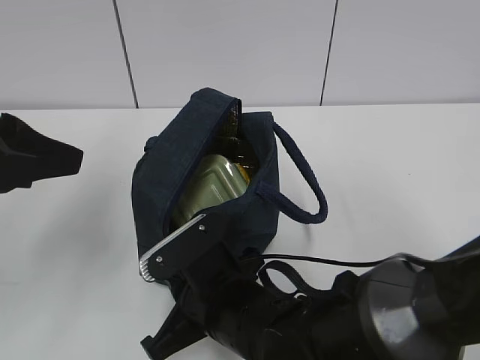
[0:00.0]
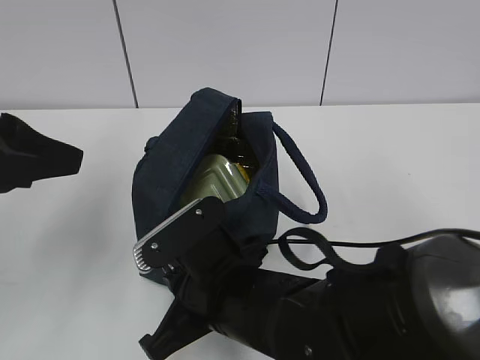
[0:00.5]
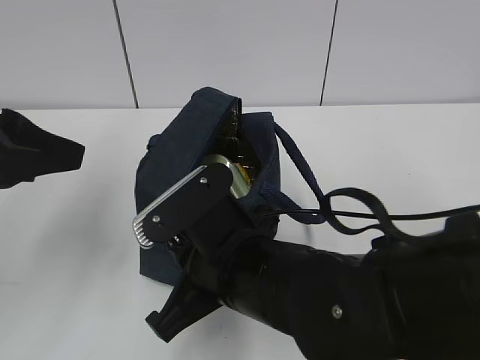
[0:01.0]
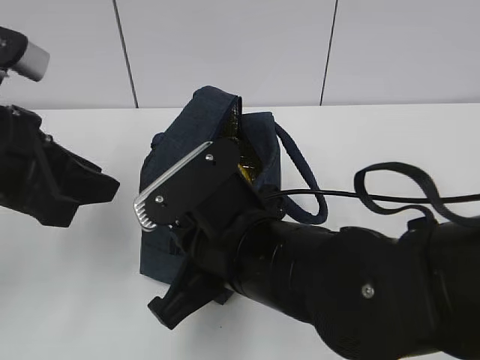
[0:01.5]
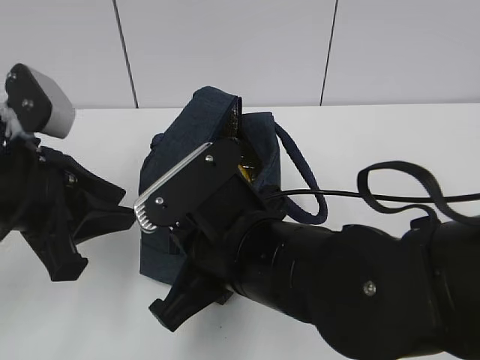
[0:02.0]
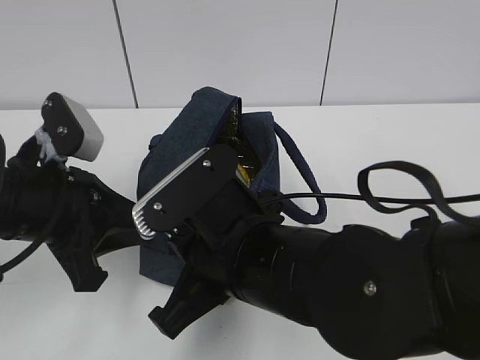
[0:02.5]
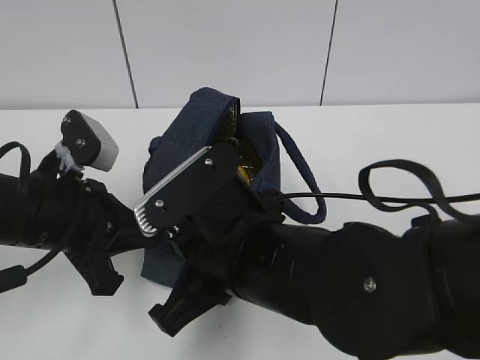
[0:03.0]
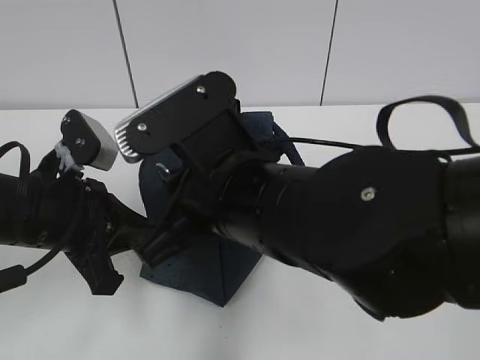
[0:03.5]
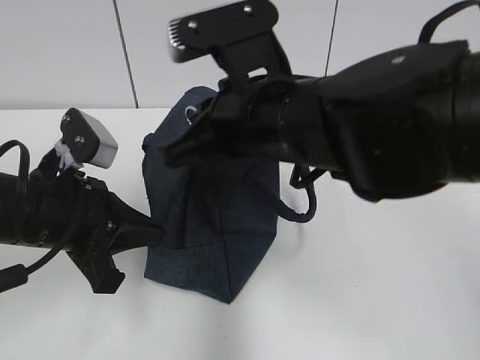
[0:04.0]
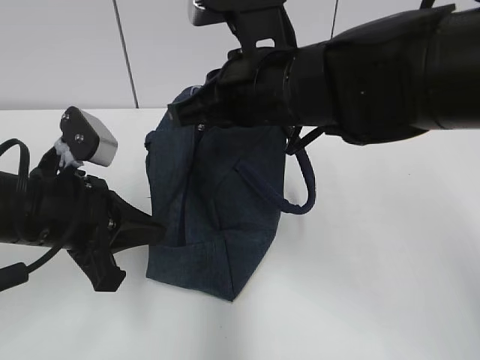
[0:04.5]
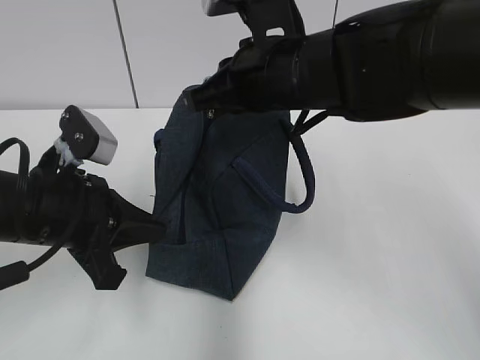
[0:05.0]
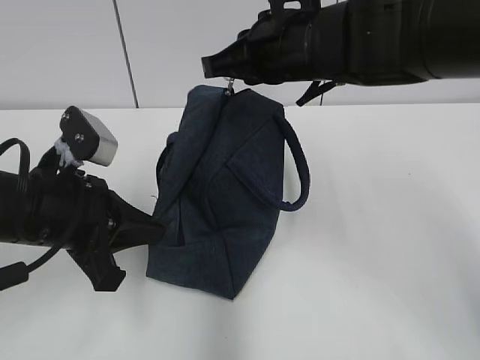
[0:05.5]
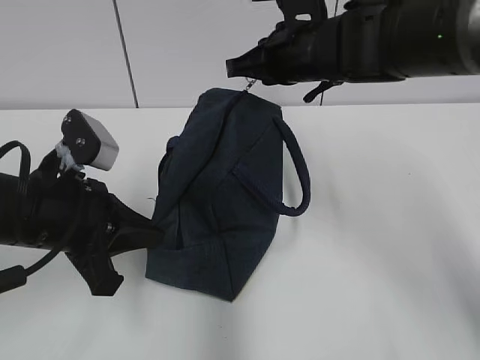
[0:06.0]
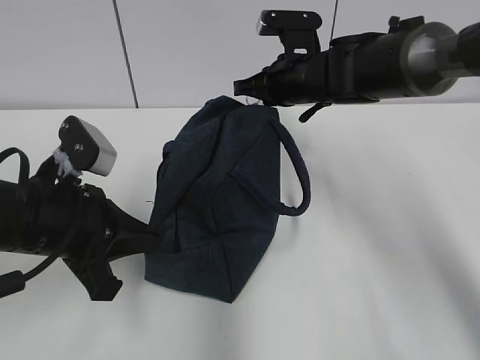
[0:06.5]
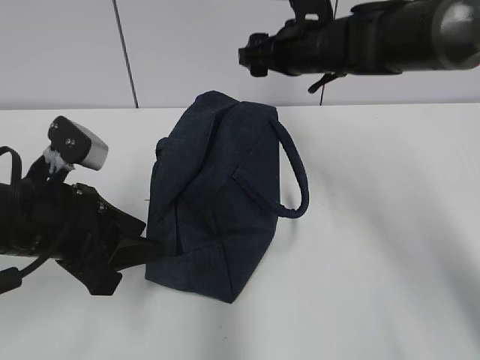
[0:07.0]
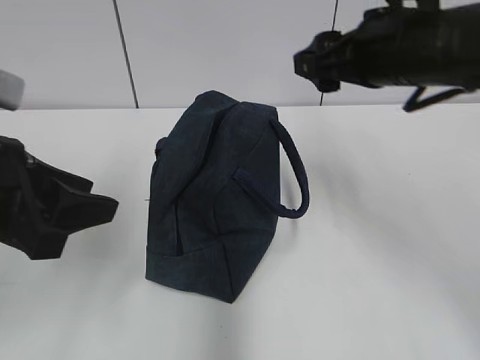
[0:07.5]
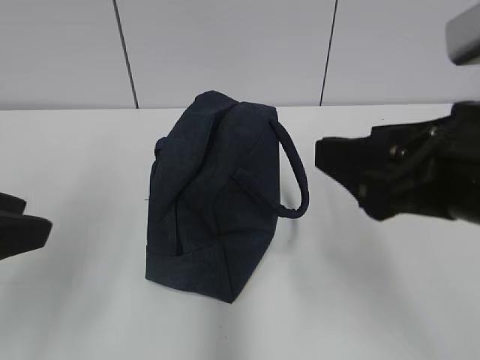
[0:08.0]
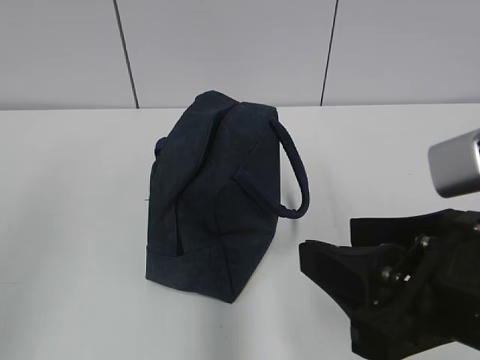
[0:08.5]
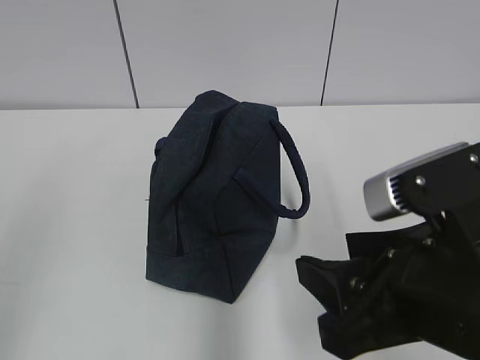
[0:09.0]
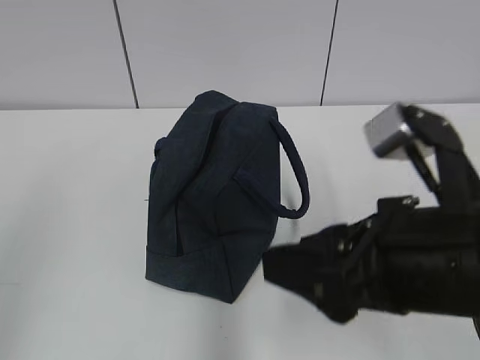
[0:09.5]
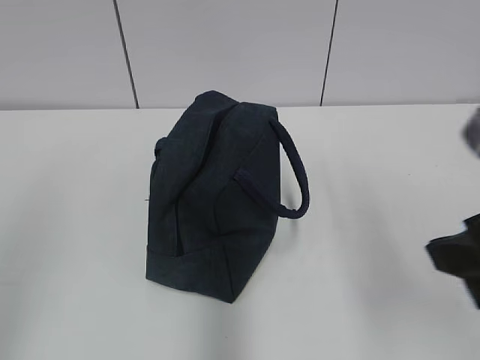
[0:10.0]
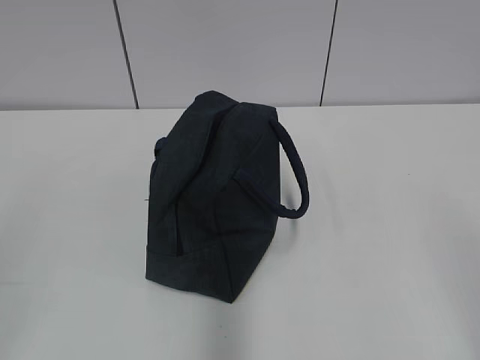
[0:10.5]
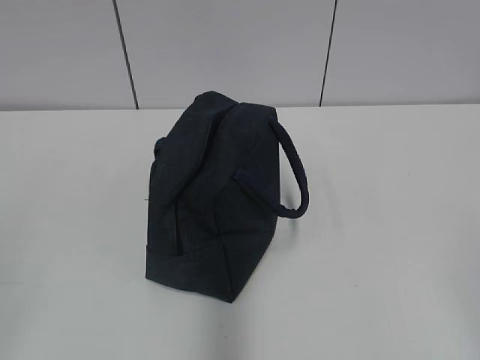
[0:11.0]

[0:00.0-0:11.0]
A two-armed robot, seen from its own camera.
0:00.0 to 0:02.0: The left gripper goes approximately 5 cm downward. Meanwhile the right gripper moves upward, some 10 cm.
0:02.0 to 0:03.5: The left gripper moves some 5 cm, and closes up.
0:03.5 to 0:05.5: The right gripper goes roughly 15 cm forward and to the right.
0:05.5 to 0:07.5: The left gripper travels upward by approximately 5 cm, and opens up, while the right gripper moves to the right, roughly 10 cm, reaches some 10 cm forward, then returns, and opens.
0:07.5 to 0:09.0: The left gripper moves backward, to the left and upward, approximately 20 cm. The right gripper heads backward, covering approximately 20 cm.
0:09.0 to 0:11.0: The left gripper heads backward, covering some 5 cm. The right gripper moves to the right and backward, some 20 cm.

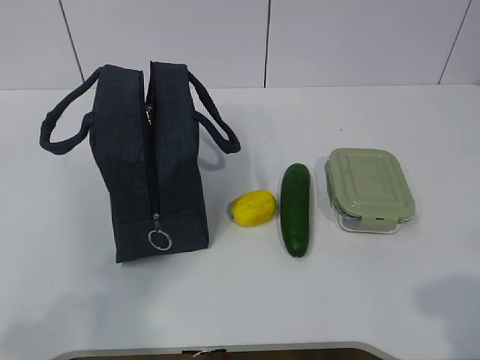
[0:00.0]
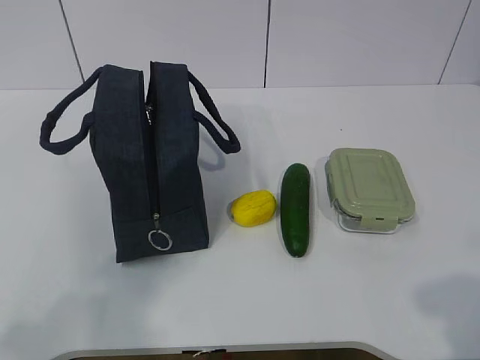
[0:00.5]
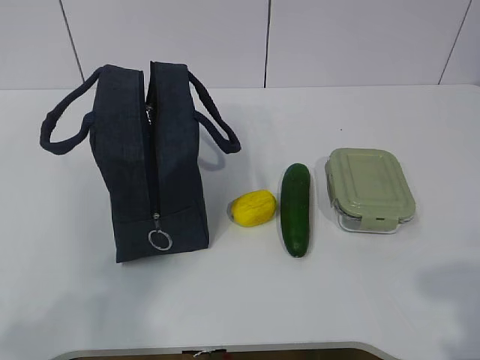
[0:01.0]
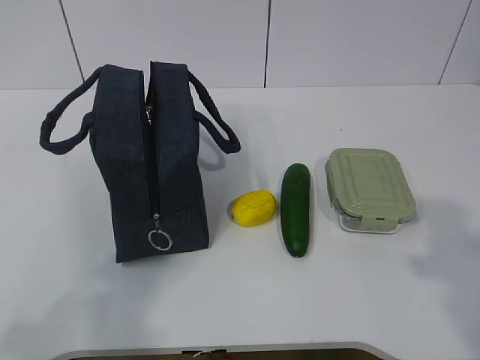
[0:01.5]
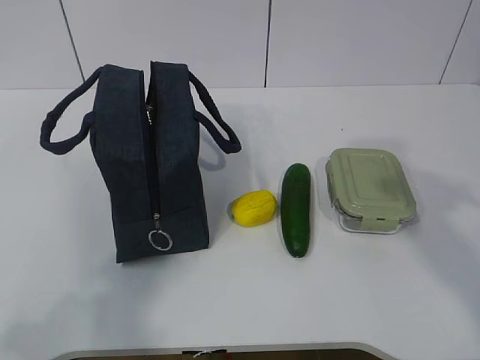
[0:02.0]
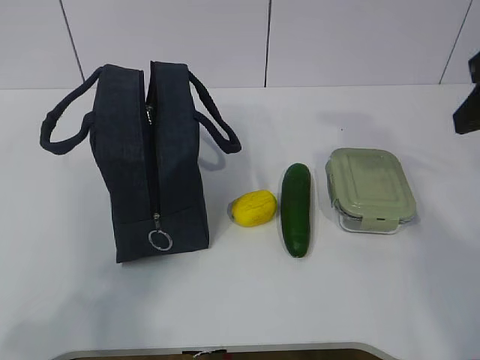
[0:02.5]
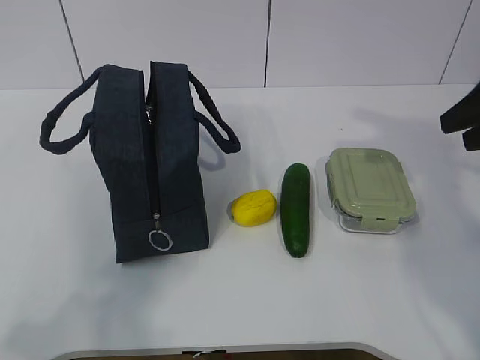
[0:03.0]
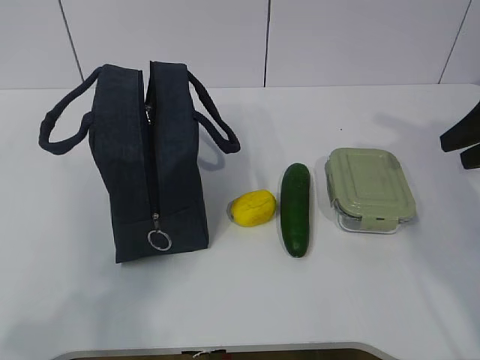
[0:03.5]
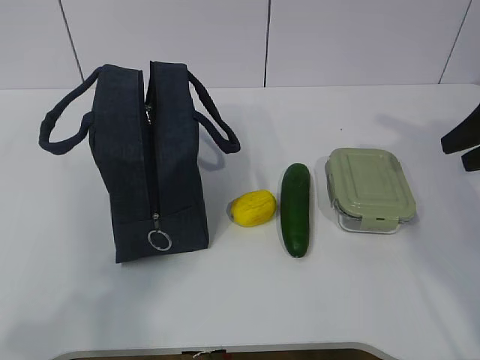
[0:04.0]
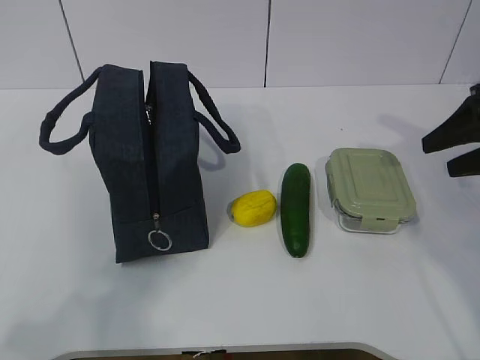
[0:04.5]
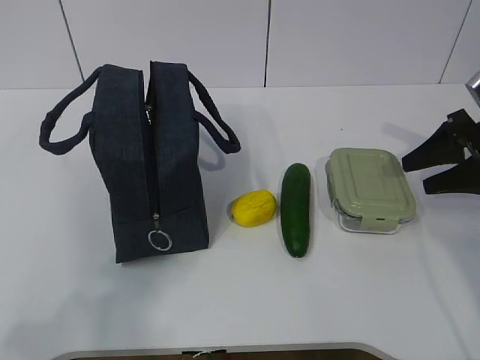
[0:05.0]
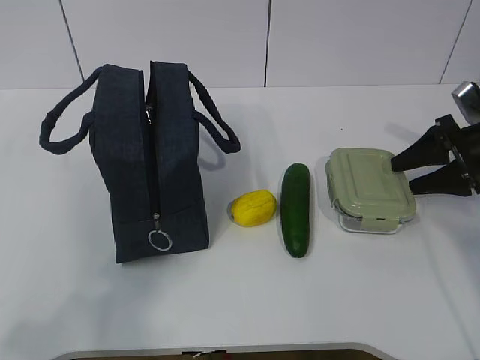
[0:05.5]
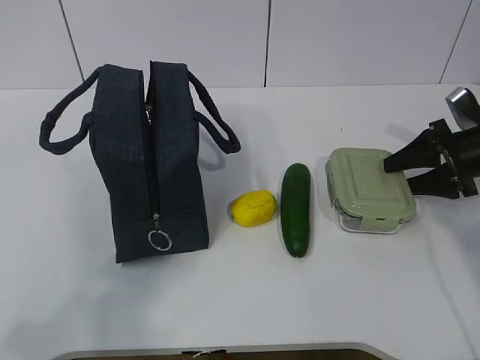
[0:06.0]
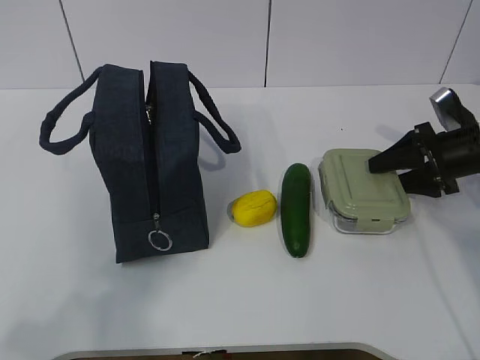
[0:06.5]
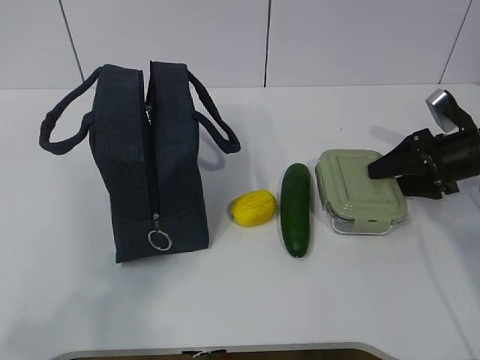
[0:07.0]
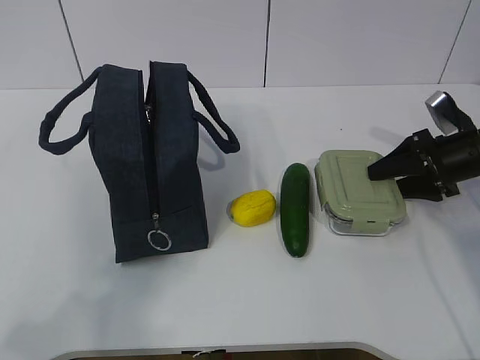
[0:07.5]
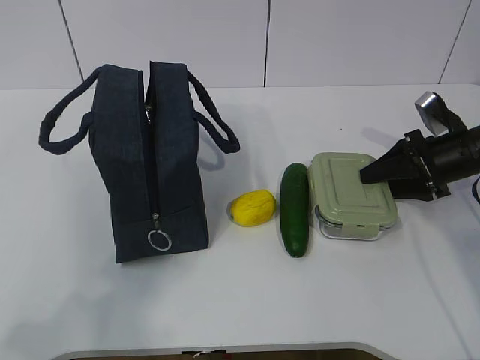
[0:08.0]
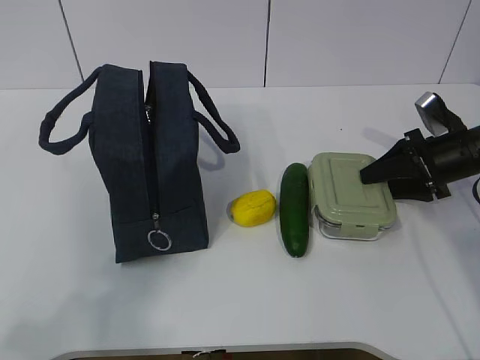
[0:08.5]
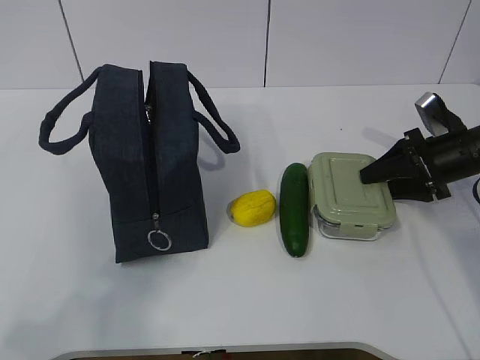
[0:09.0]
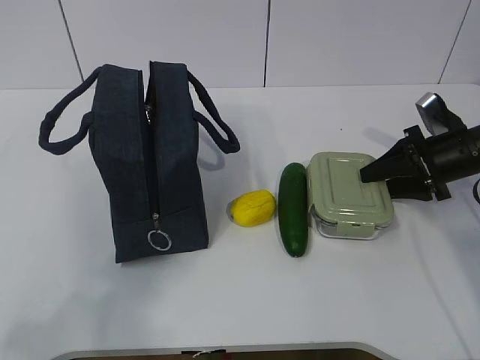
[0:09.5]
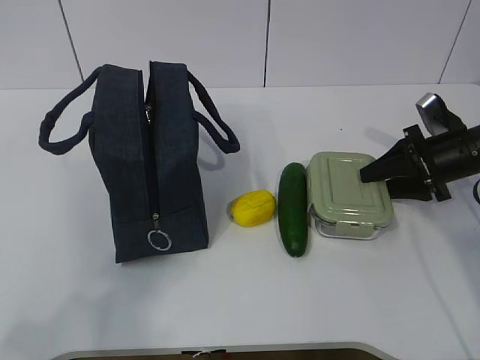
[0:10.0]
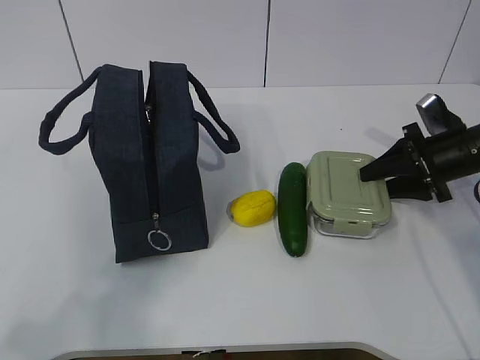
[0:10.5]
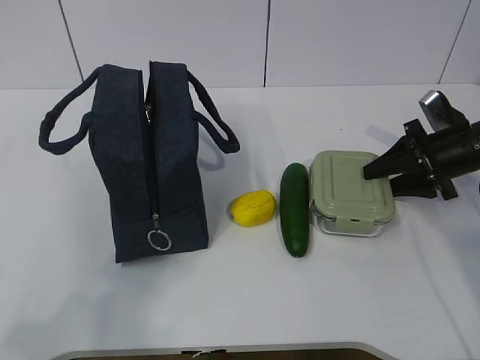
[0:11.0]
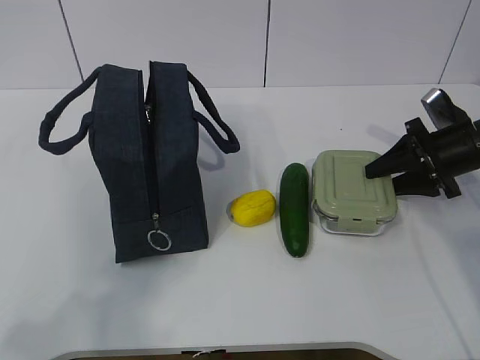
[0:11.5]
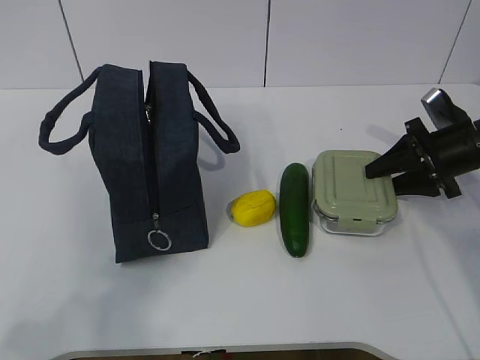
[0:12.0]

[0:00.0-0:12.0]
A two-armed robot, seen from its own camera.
Step, 0:00.0 to 0:06.5: Grasp the box with the right gripper.
0:02.0 to 0:04.0: The right gripper shifts approximately 20 cm forward and downward.
0:04.0 to 0:06.0: The right gripper goes roughly 15 cm downward and forward.
0:06.0 to 0:12.0: The grippers stay close to where they were, moving slightly.

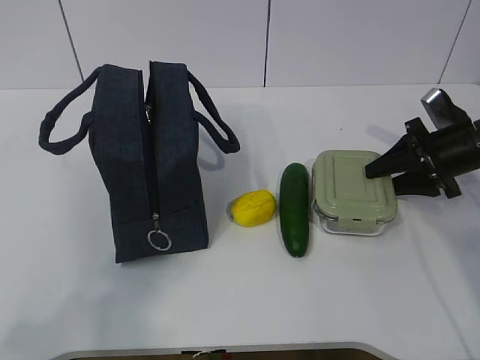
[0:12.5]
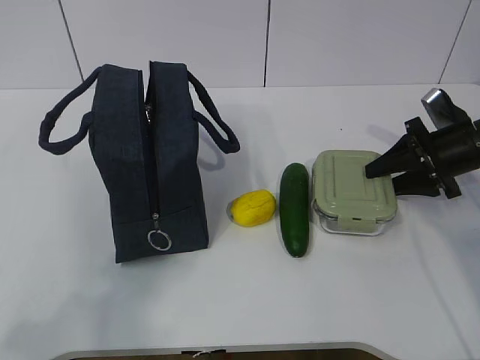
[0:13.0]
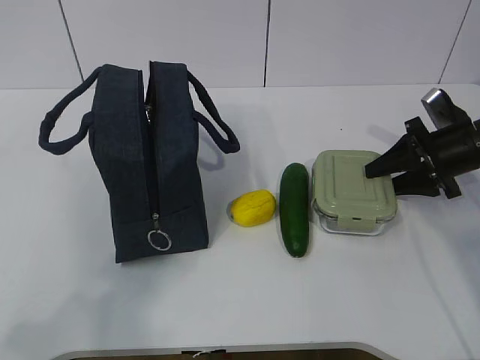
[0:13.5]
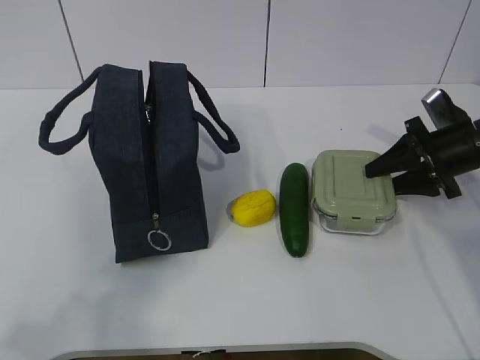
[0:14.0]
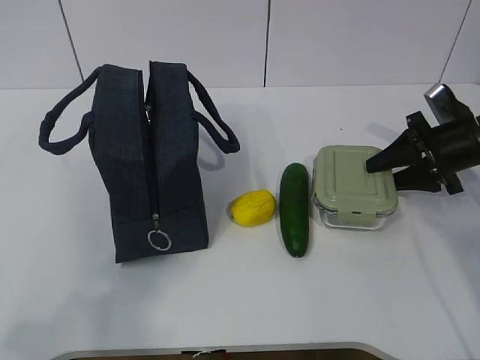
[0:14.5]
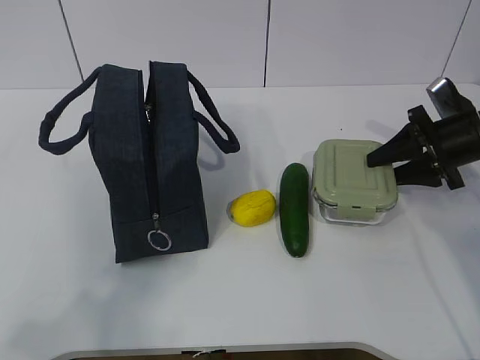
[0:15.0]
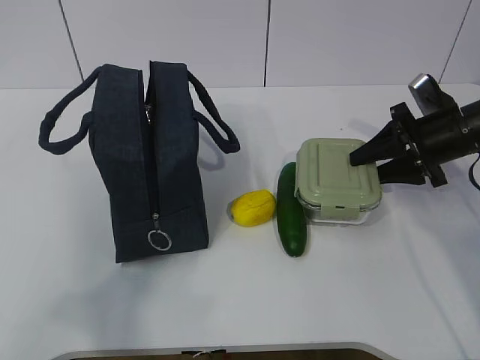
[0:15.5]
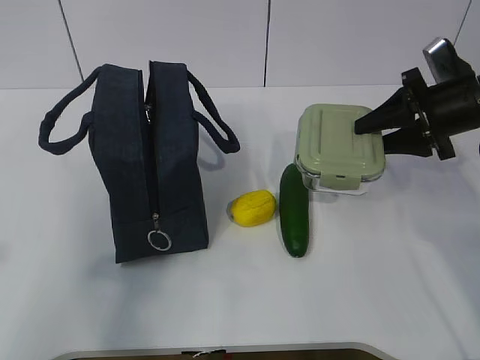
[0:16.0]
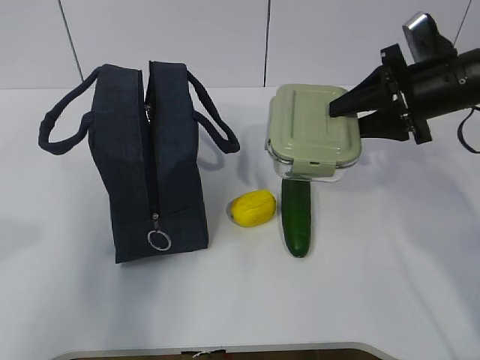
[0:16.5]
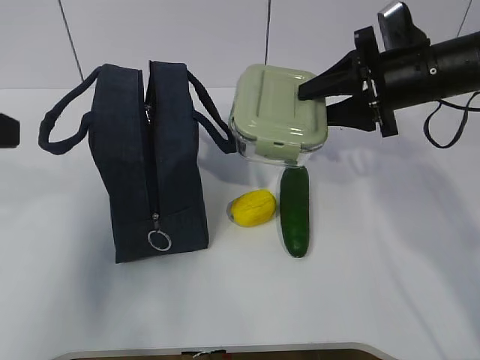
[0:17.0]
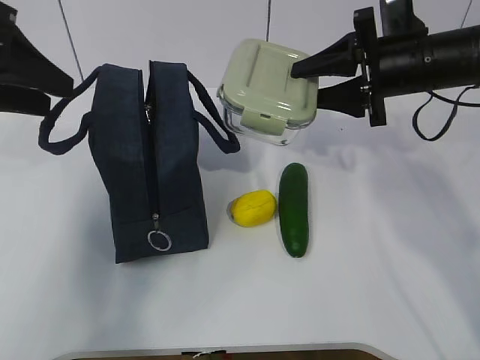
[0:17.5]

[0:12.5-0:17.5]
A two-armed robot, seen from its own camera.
0:12.5 to 0:15.0: Both grippers stay put.
0:15.0 to 0:17.5: The right gripper heads to the left and upward, covering some 15 cm. The left gripper travels forward by roughly 30 cm.
